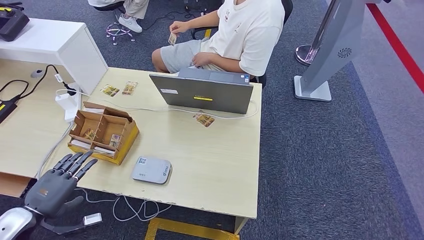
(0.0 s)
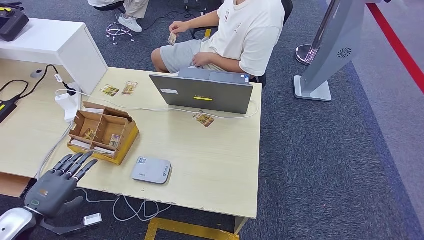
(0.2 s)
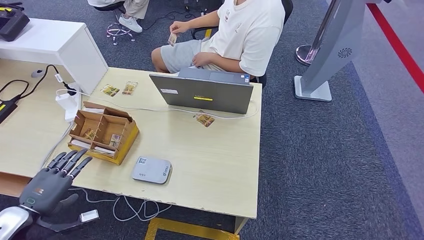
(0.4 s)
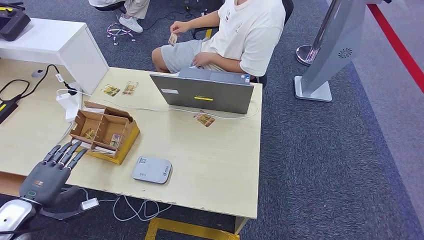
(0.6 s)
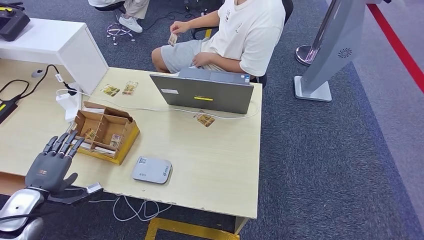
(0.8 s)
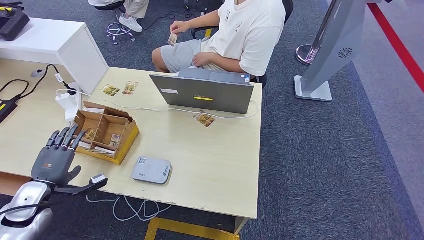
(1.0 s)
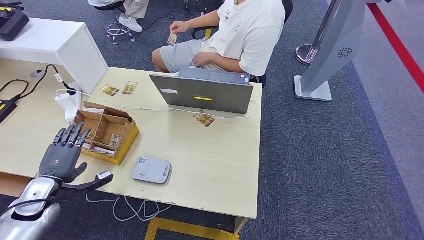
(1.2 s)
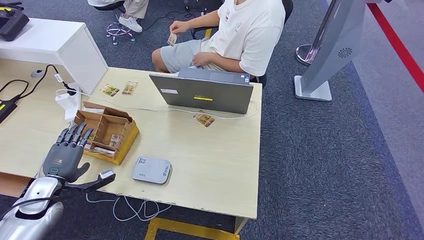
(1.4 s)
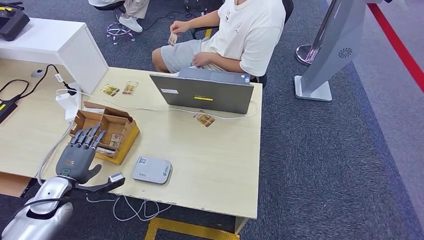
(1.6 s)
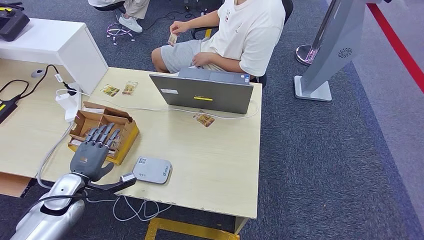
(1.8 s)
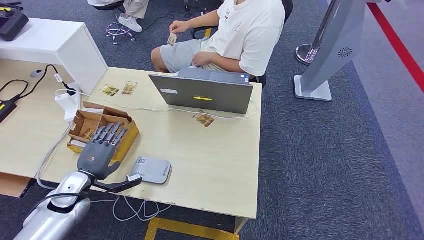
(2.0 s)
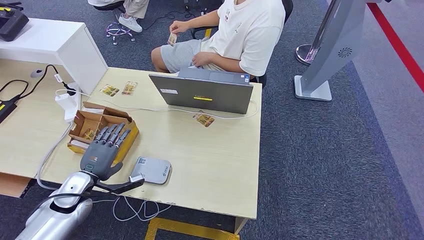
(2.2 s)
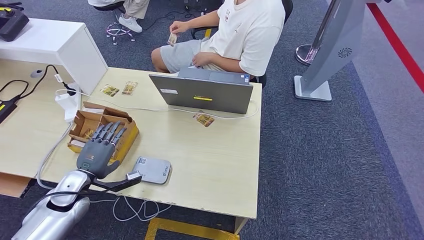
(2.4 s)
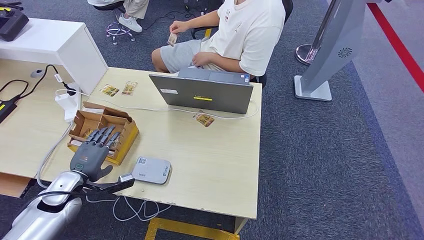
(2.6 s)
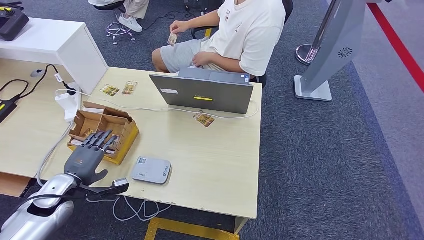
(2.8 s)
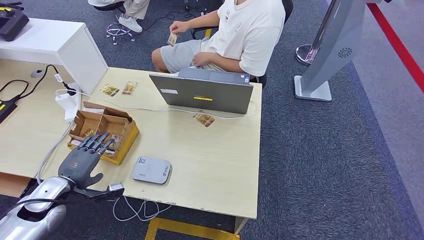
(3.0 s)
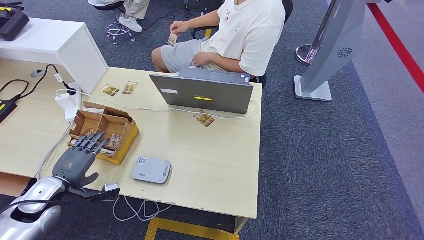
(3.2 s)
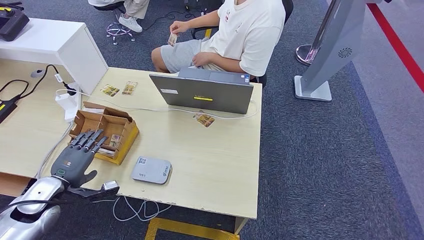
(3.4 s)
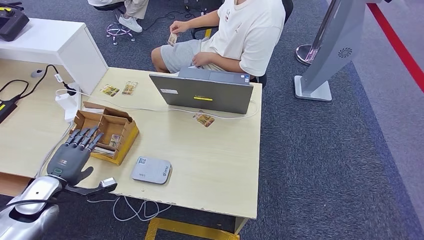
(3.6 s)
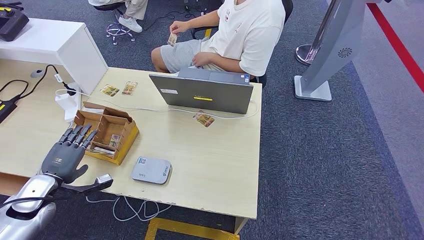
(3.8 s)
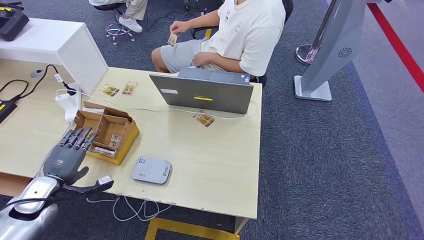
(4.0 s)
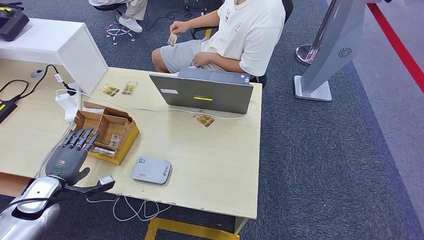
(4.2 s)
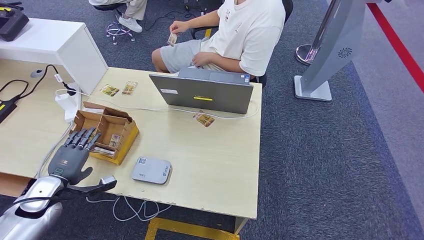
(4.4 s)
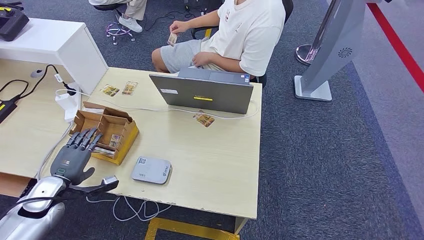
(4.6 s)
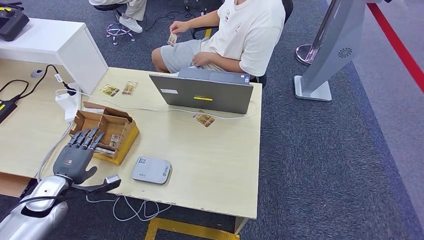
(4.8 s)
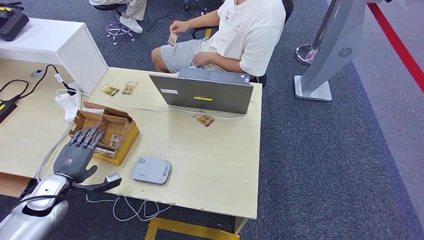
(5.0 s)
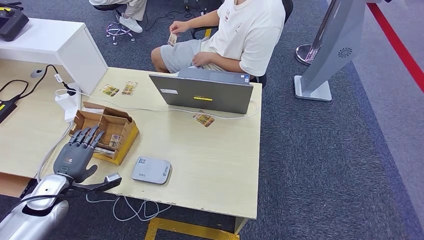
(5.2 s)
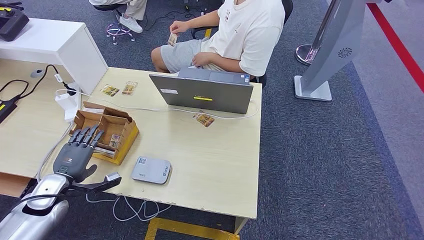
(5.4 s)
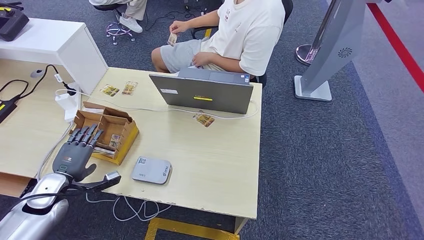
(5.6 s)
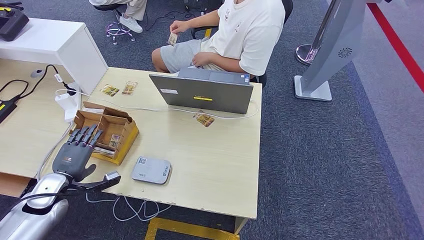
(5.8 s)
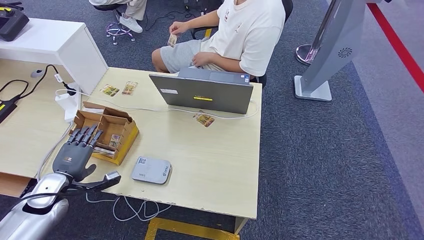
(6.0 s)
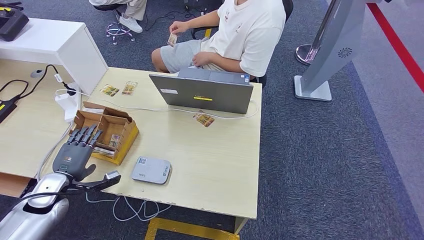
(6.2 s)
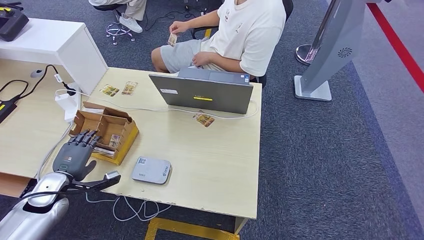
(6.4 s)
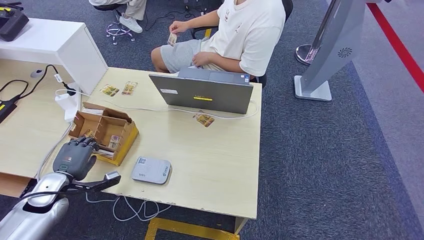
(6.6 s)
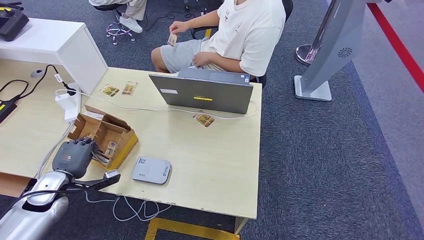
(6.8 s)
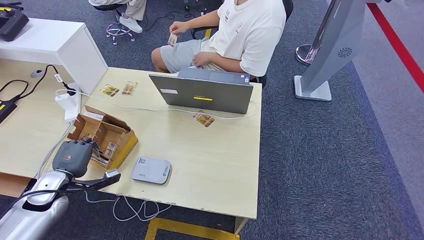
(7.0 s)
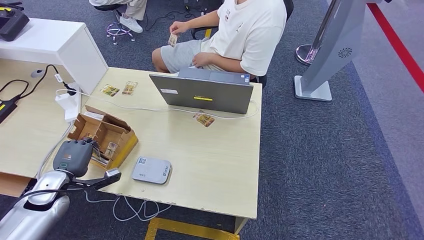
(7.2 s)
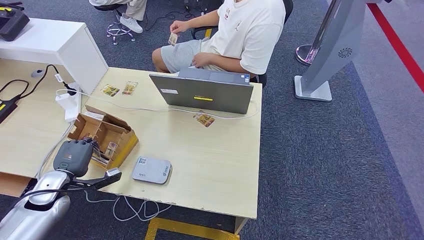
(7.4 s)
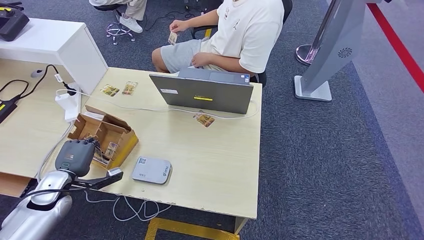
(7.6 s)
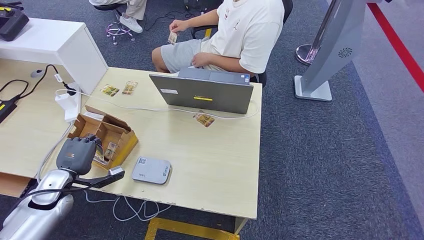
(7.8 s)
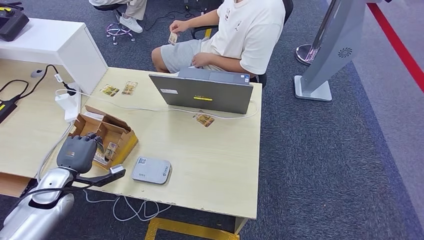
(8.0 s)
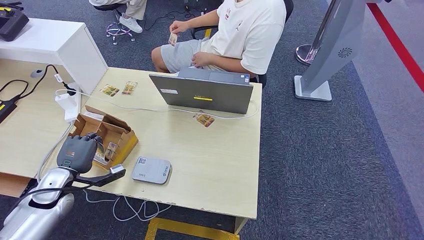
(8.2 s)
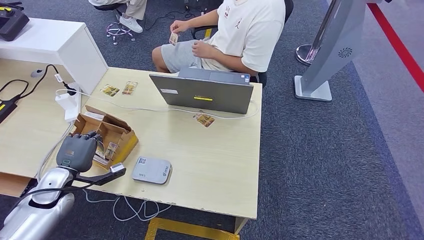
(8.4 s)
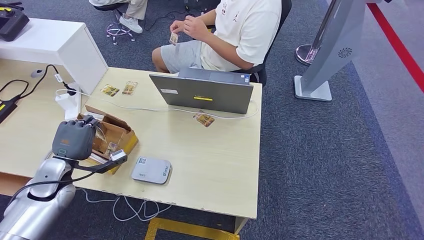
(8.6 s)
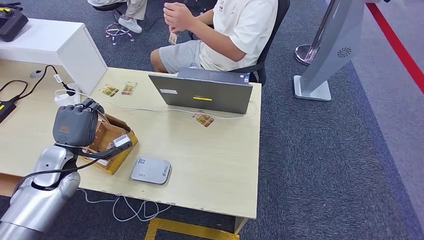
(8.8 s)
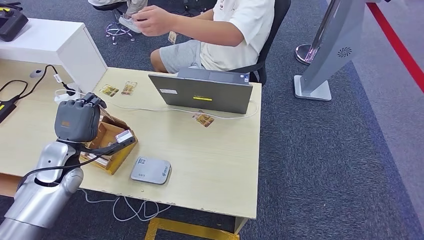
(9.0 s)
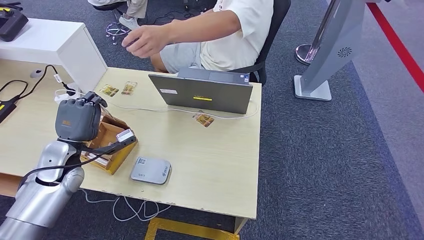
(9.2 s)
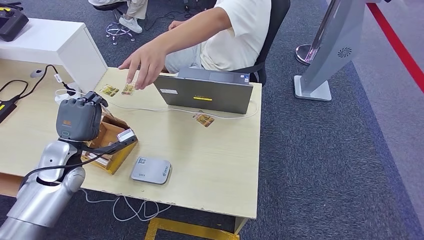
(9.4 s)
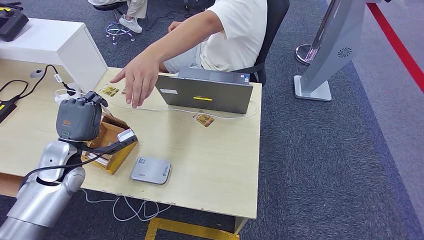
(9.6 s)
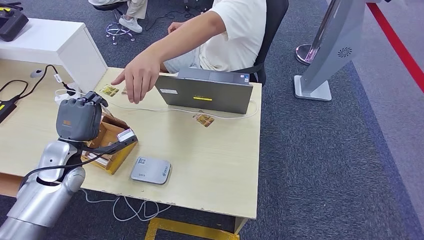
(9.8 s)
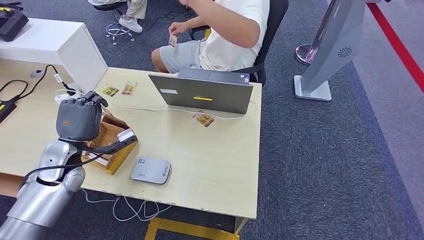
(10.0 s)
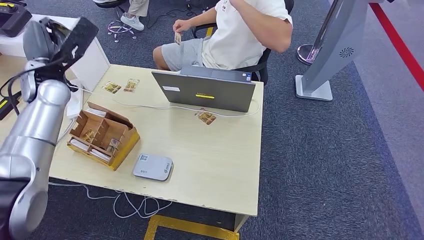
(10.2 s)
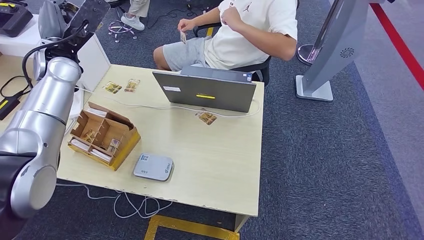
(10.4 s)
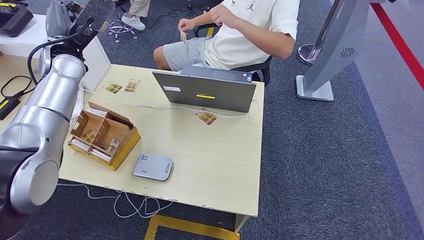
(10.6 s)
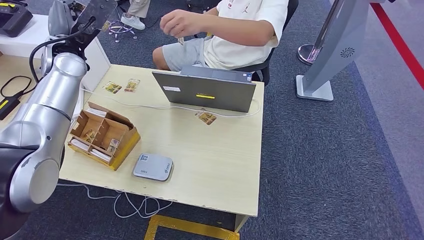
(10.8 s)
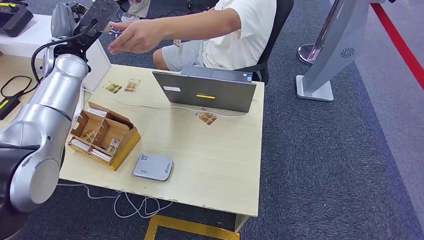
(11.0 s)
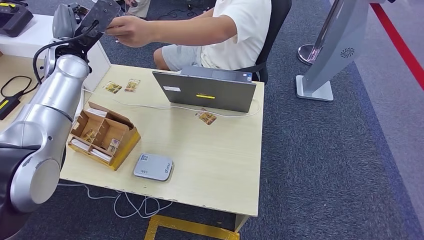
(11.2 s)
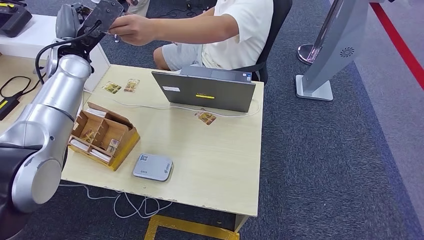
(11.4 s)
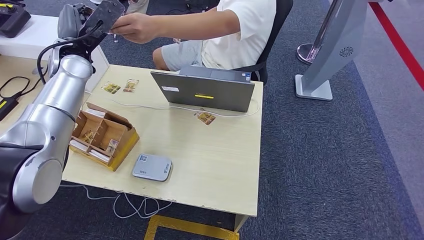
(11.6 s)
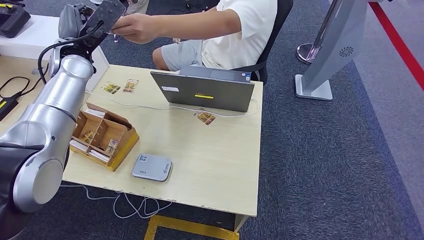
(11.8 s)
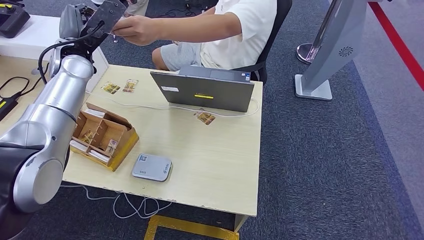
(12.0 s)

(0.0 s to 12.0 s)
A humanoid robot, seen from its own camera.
Step, 0.0 s - 8.0 s: Pick up the room key from the key card box.
0.0 s - 1.6 s: The left hand is displaced forward and downward by approximately 10 cm.
1.6 s - 4.4 s: The hands move only a little.
4.4 s - 6.0 s: Both hands stay about where they are.
6.0 s - 7.6 s: Both hands stay about where they are.
7.6 s - 9.0 s: The left hand is displaced upward and to the right by some 10 cm.
10.4 s - 12.0 s: The hands move only a little.

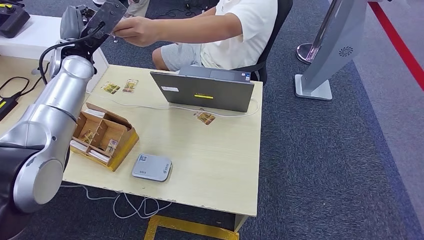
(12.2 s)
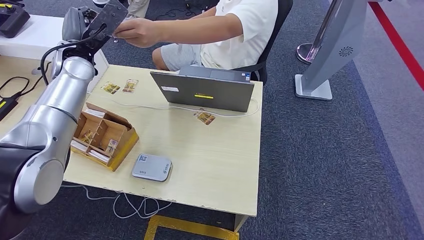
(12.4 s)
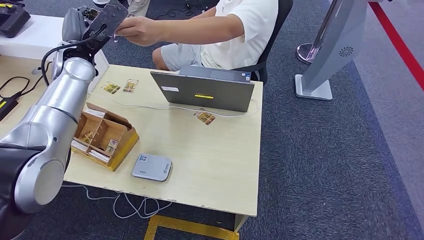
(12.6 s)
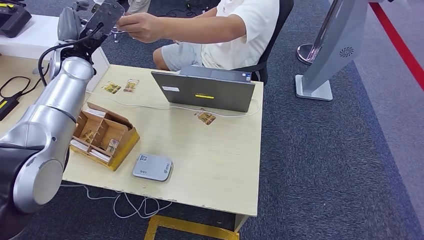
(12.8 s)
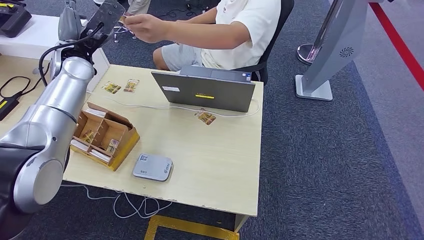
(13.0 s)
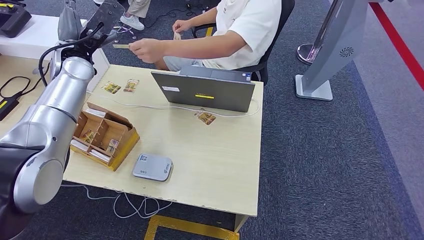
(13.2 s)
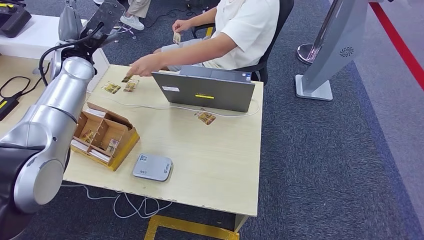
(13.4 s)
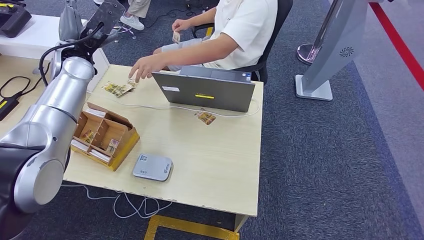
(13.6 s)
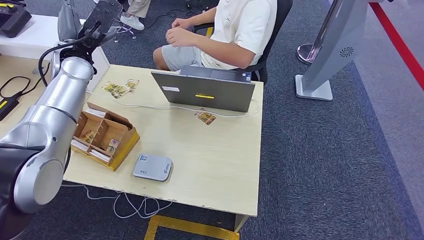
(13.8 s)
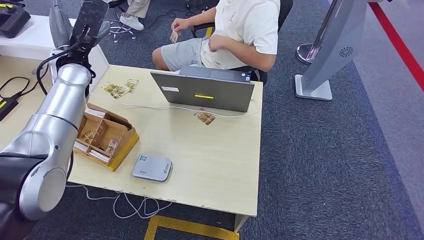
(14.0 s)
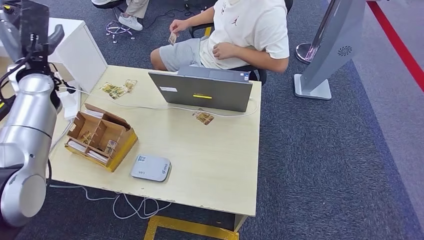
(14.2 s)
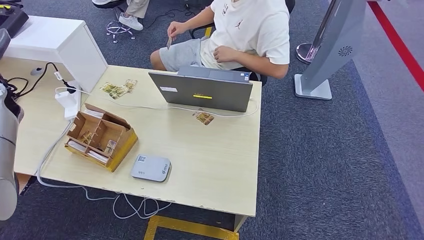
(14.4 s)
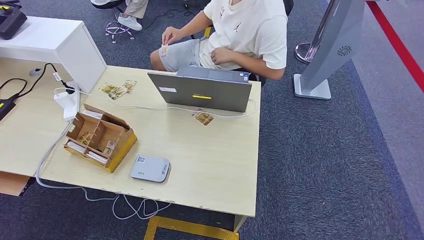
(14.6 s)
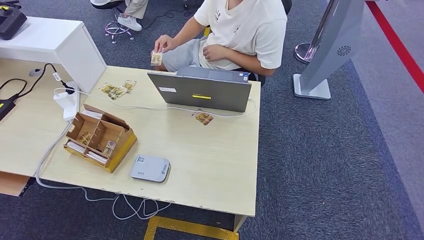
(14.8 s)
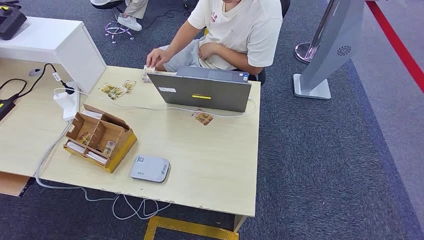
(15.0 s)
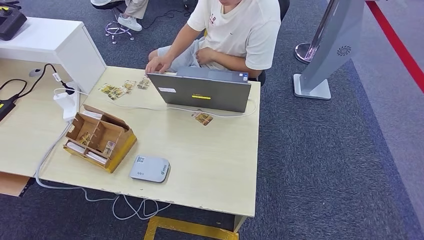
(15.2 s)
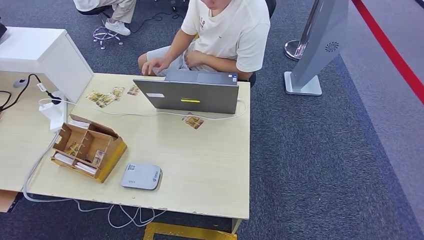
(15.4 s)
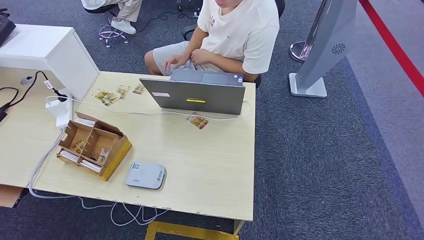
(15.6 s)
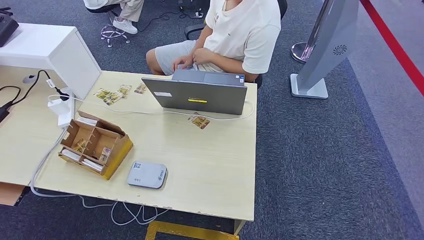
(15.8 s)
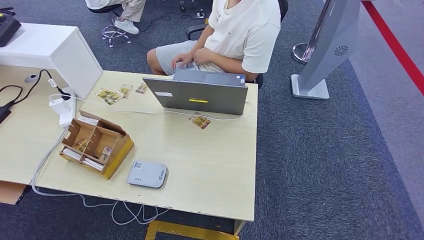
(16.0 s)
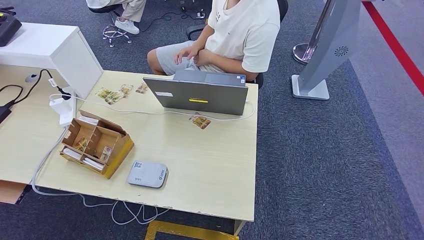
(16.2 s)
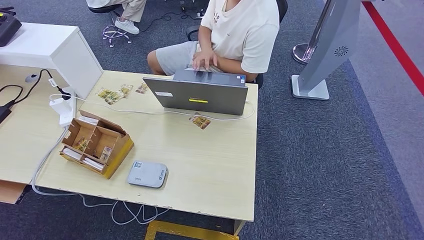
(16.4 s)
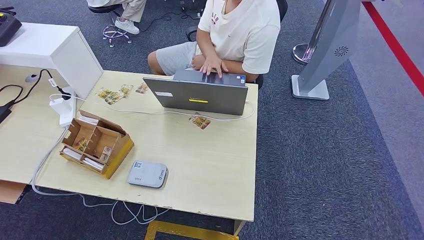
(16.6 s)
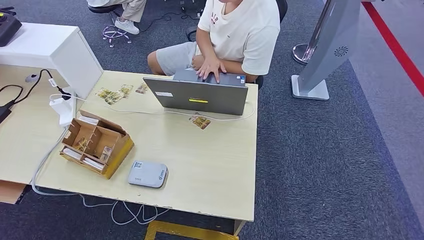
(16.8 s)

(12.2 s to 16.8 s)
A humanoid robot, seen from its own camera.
Step, 12.2 s - 16.6 s: Hand the room key to the person.
12.2 s - 13.8 s: The hands move only a little.
15.2 s - 16.8 s: The left hand travels downward and backward by about 50 cm.
